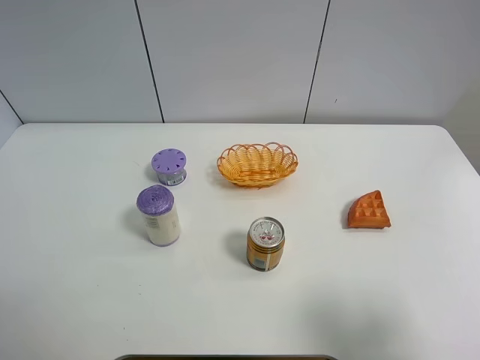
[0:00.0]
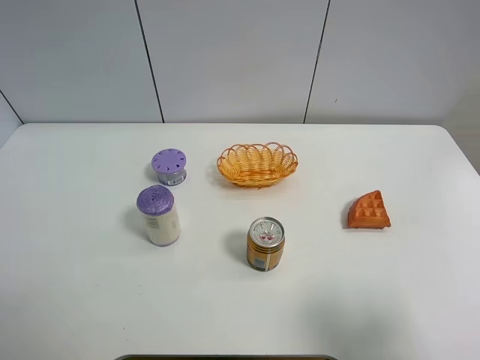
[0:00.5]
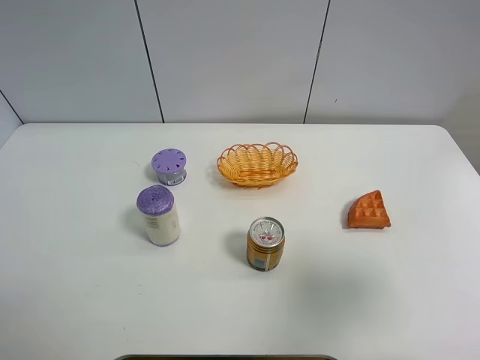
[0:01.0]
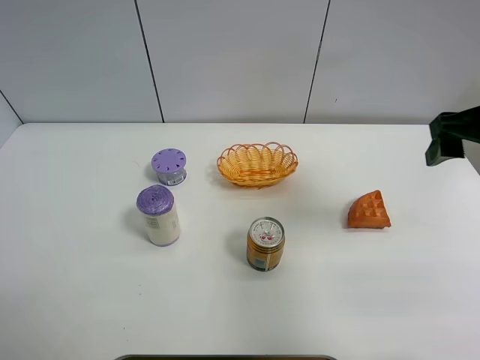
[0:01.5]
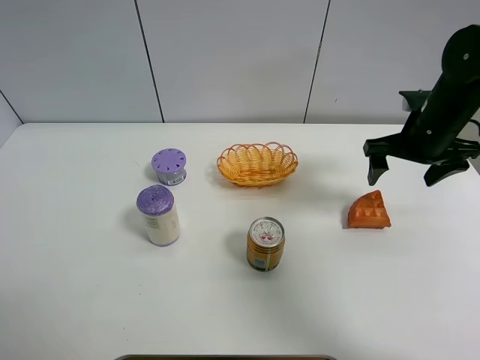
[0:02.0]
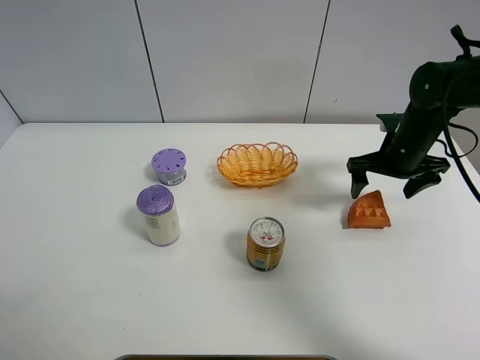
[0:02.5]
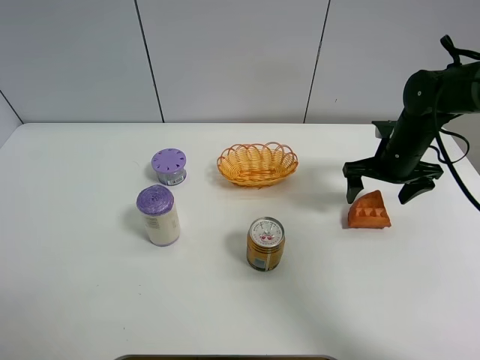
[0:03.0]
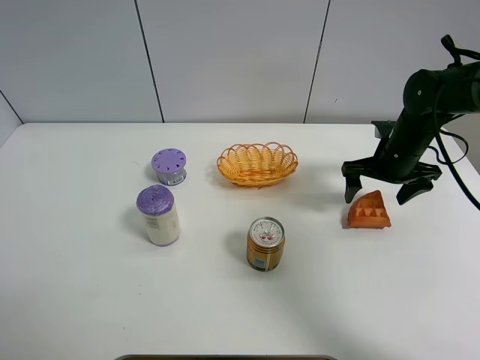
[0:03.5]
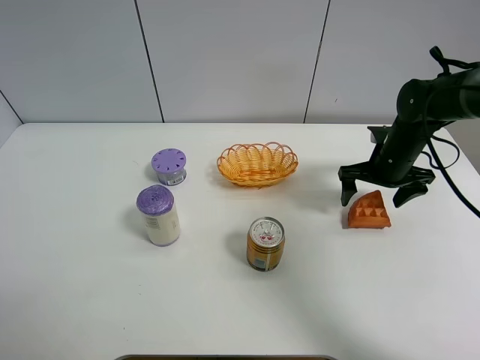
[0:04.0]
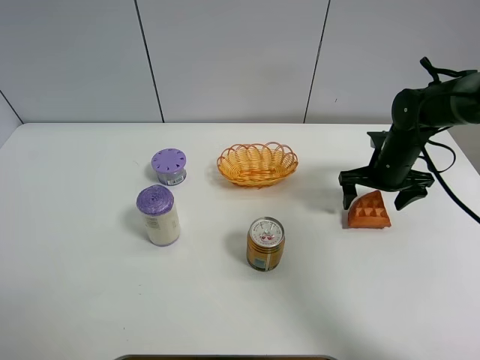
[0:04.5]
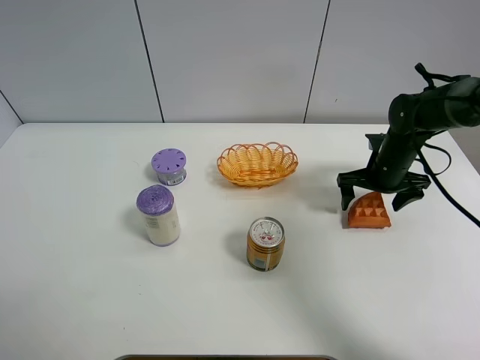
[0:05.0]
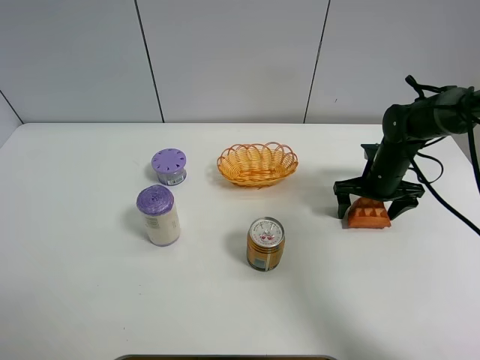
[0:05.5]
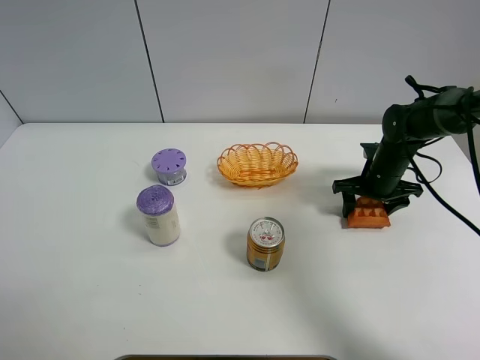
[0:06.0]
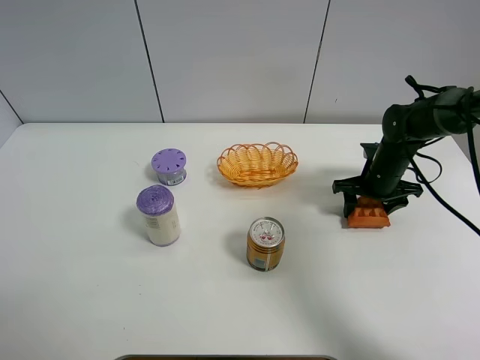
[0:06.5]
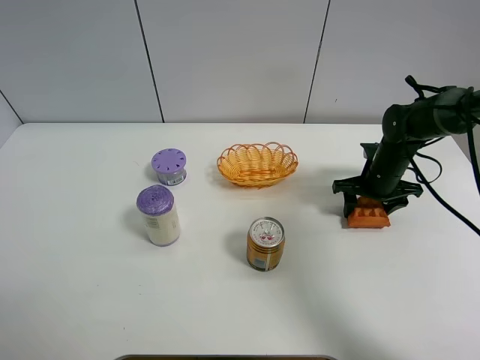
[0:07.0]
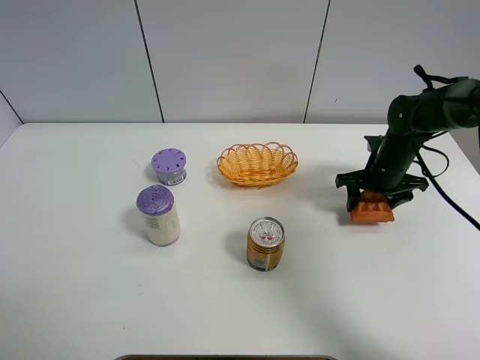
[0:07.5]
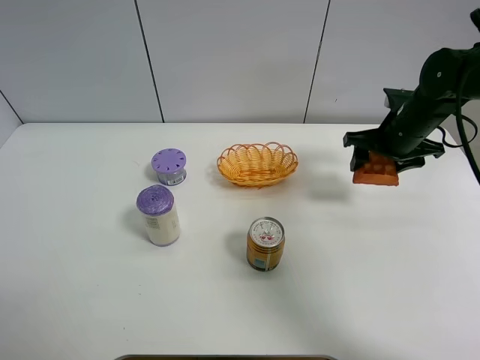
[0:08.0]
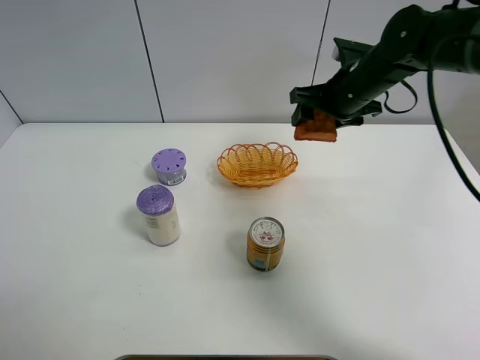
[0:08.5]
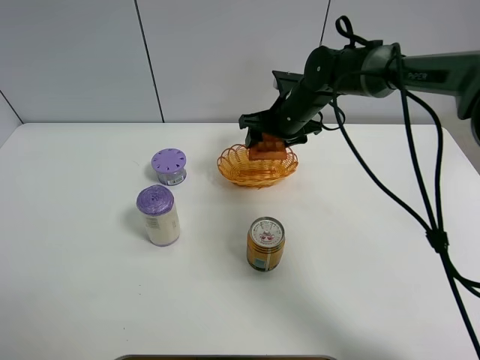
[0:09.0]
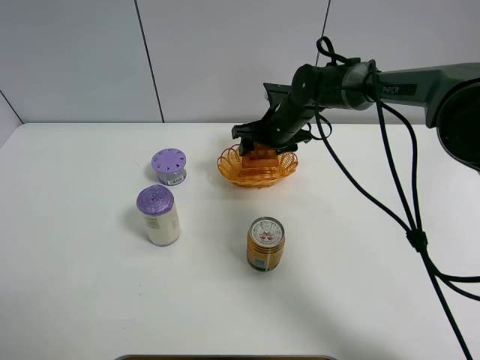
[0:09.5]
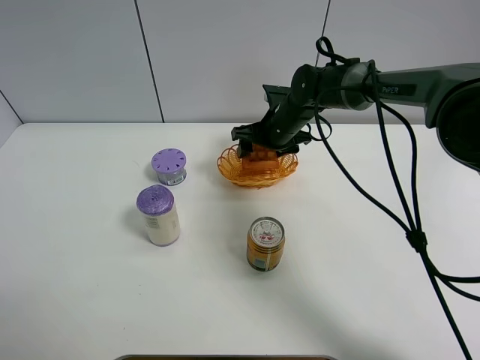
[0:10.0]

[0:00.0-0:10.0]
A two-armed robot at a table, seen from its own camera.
Task of the whole recording: Put the bakery in the basket.
Step, 0:00.0 to 0:06.0: Grasp the bread with right gripper.
0:00.0 to 0:02.0: The right gripper travels forward by about 35 cm.
0:02.0 to 0:04.0: The right gripper travels downward by roughly 10 cm.
0:04.0 to 0:06.0: The right gripper closes.
0:06.0 to 0:08.0: The right gripper shifts about 10 cm upward.
0:08.0 to 0:10.0: The right gripper shifts about 15 cm to the left.

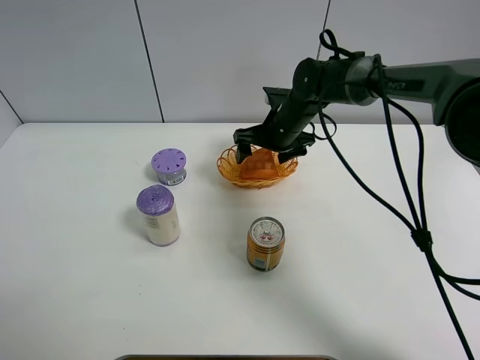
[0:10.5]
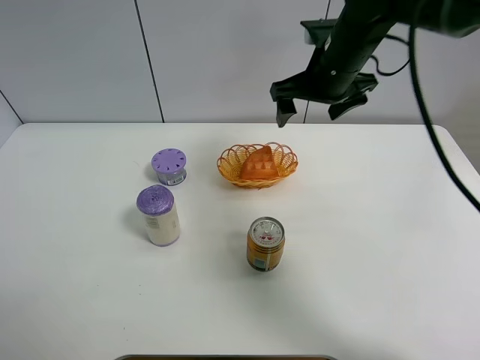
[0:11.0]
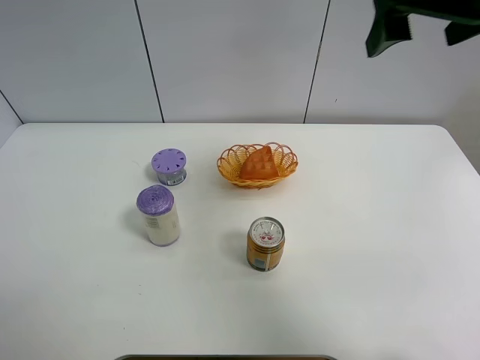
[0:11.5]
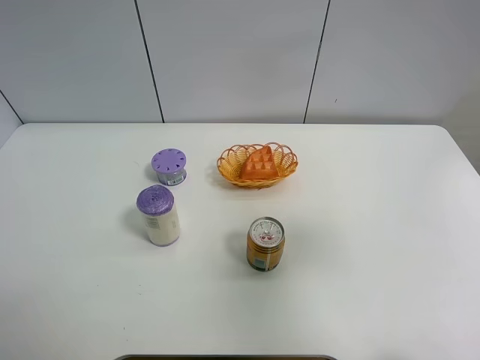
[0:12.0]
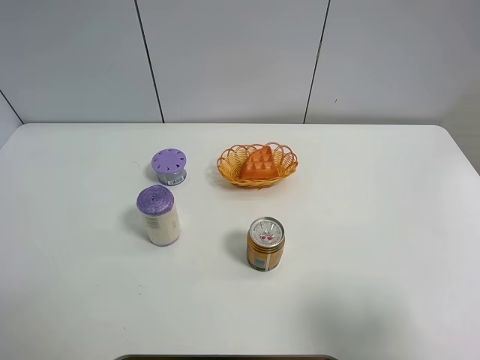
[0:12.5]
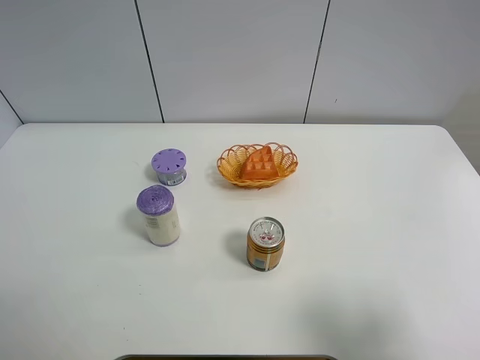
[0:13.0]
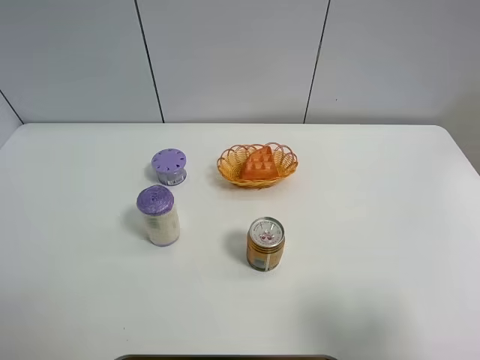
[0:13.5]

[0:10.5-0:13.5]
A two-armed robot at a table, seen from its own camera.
Task of the whole recording: Put the bakery in the basket.
0:10.5 to 0:12.0: The right gripper goes about 40 cm backward, upward and to the right.
0:12.0 to 0:13.5: The right gripper shifts about 15 cm backward and downward.

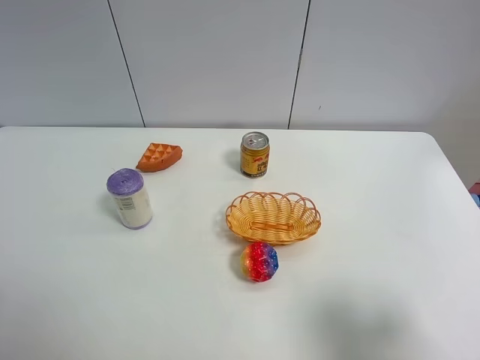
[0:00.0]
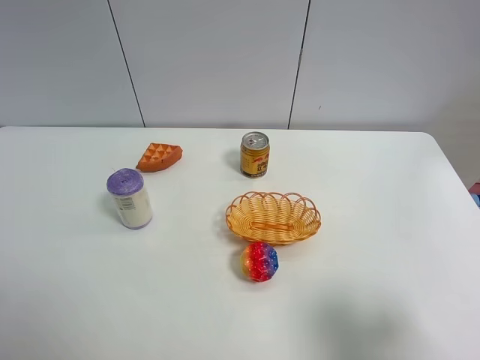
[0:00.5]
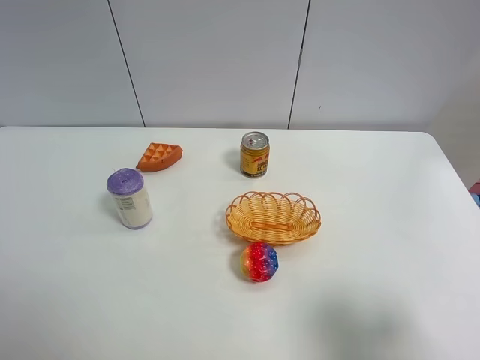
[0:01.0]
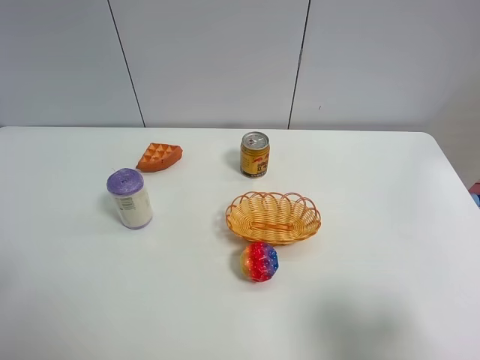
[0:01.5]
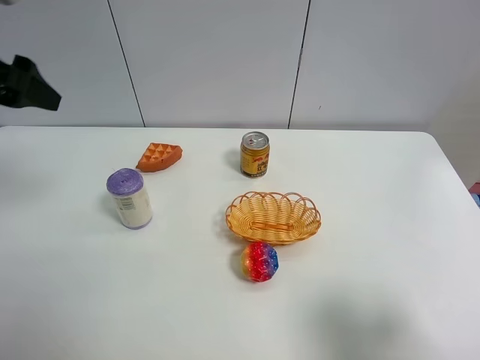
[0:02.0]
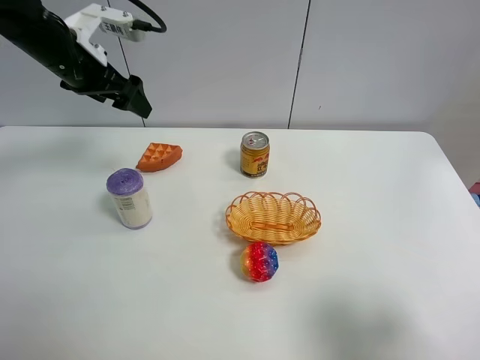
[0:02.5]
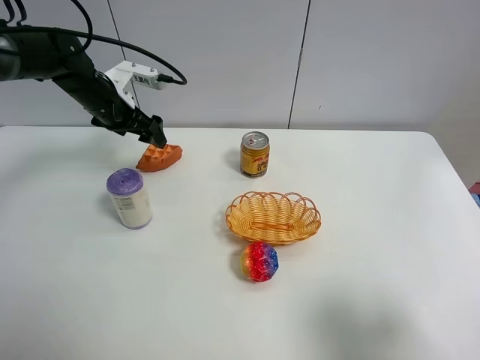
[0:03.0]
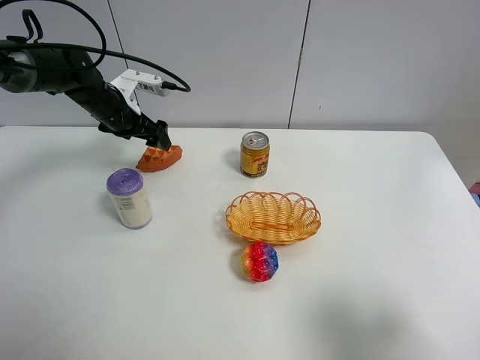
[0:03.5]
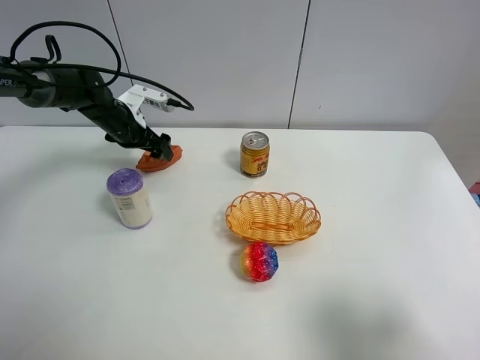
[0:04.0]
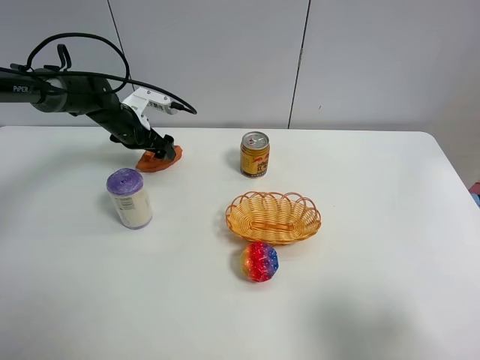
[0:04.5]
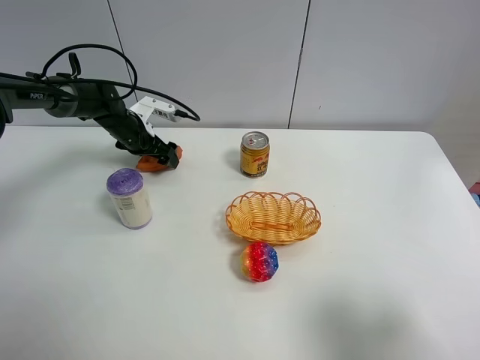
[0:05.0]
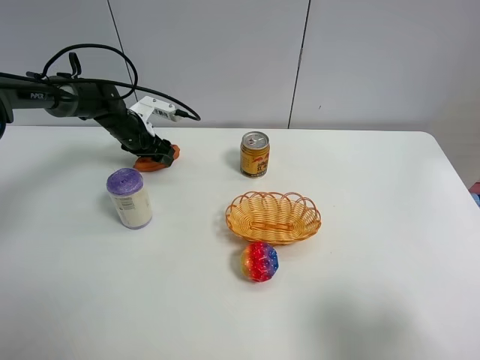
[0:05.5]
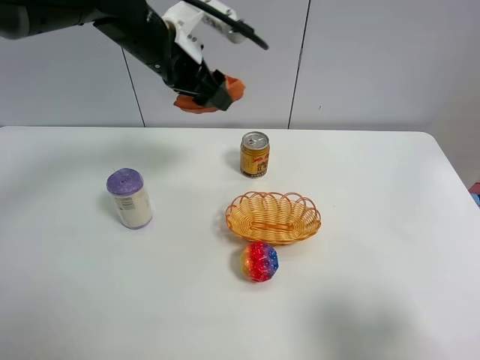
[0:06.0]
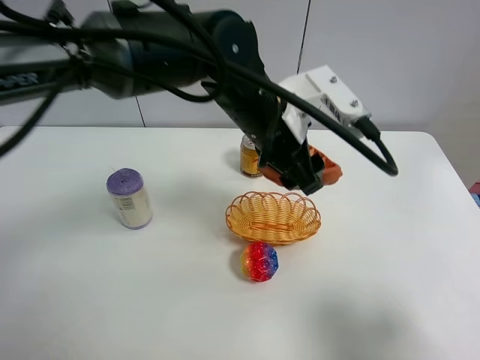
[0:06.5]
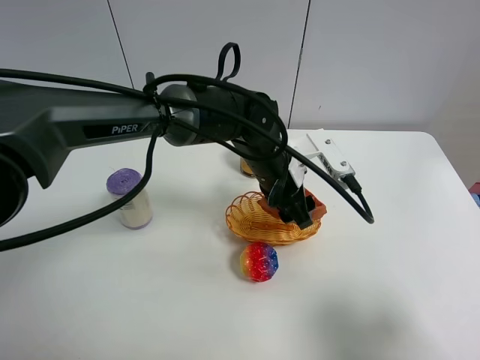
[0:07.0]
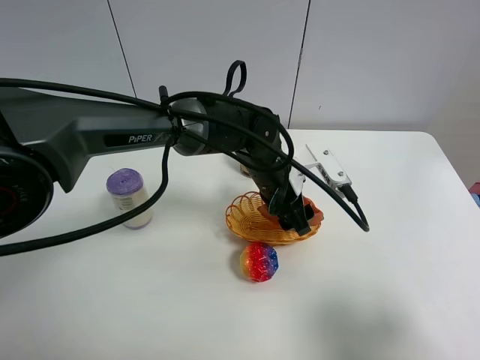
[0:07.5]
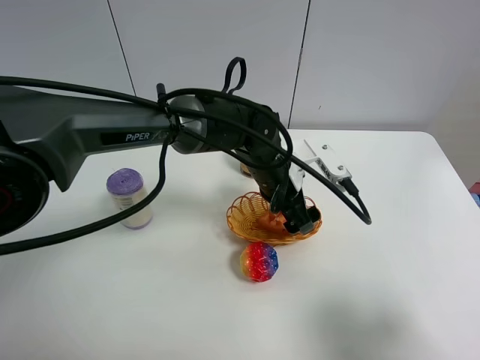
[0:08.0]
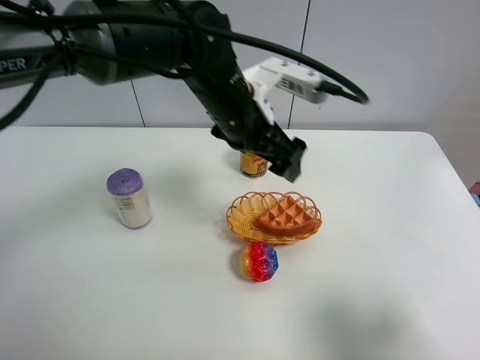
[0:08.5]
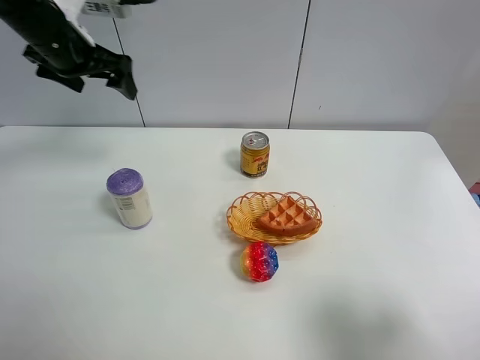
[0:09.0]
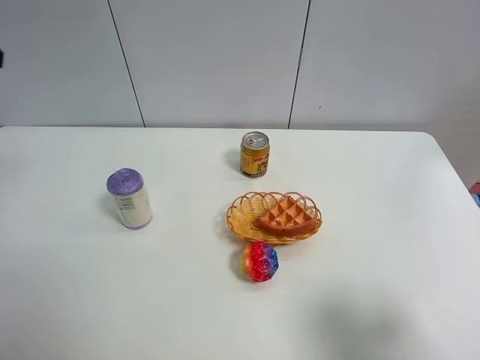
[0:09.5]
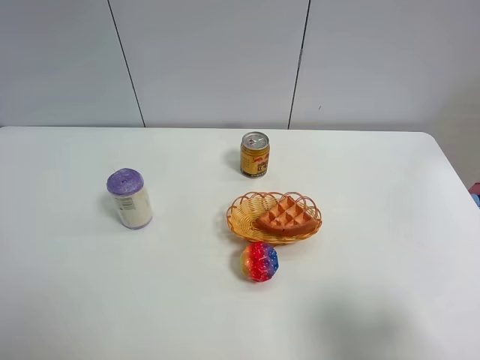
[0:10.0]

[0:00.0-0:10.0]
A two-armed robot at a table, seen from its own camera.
Task of the whole recording: Put the bakery in the basket.
0:00.0 to 0:02.0: The left gripper is displaced forward by about 30 cm.
0:02.0 to 0:04.0: The left gripper goes about 30 cm downward and forward.
0:04.0 to 0:06.0: The left gripper travels upward, to the right and backward by some 25 cm, and closes its fingers.
0:06.0 to 0:08.0: The left gripper is displaced downward, to the right and backward by approximately 20 cm, and opens.
0:08.0 to 0:10.0: The left gripper is displaced to the left, backward and upward by approximately 50 cm.
